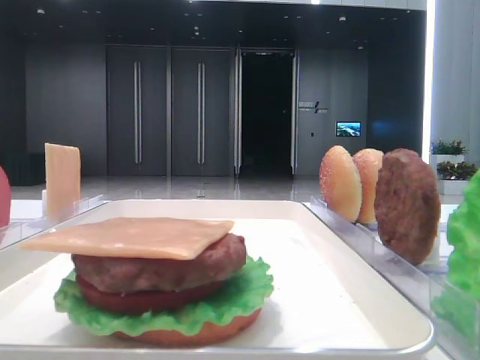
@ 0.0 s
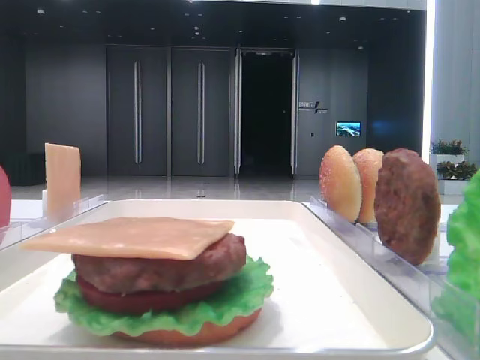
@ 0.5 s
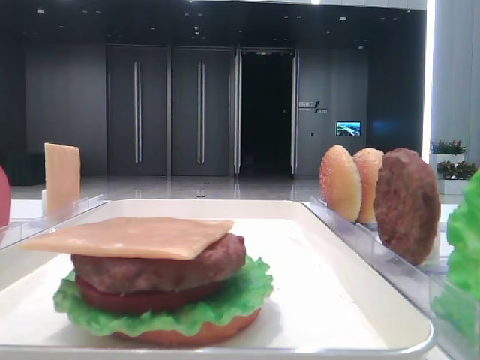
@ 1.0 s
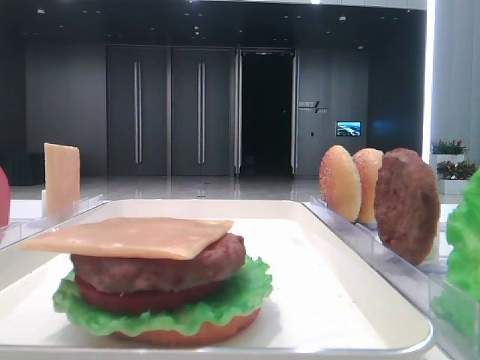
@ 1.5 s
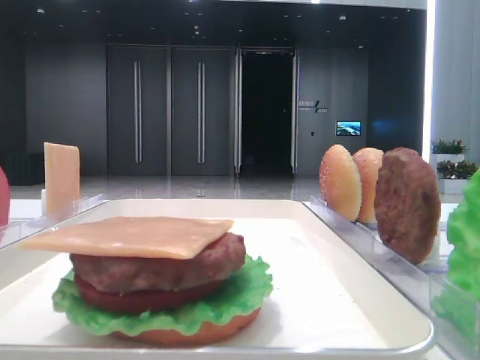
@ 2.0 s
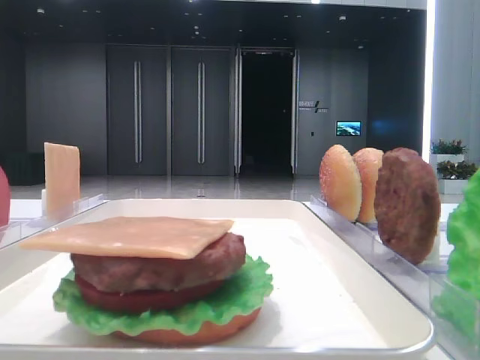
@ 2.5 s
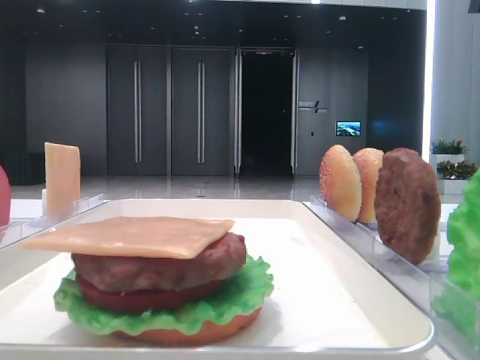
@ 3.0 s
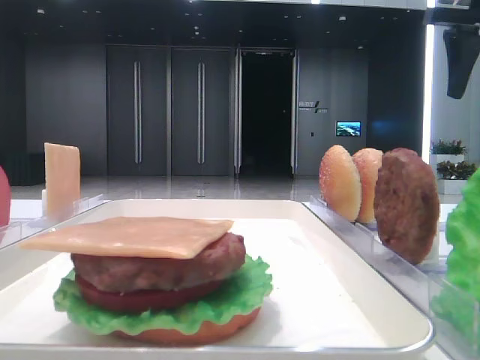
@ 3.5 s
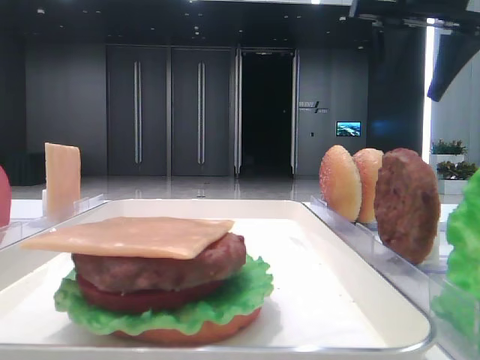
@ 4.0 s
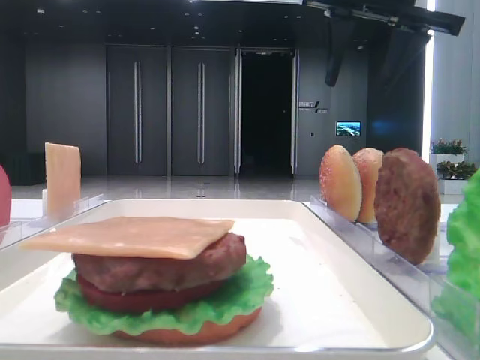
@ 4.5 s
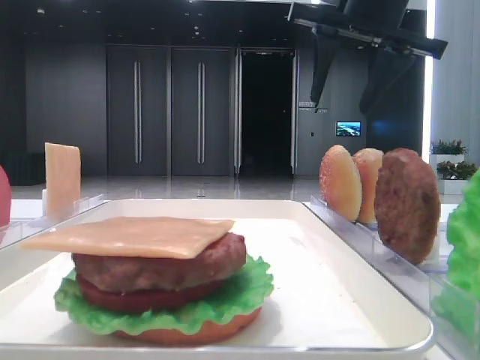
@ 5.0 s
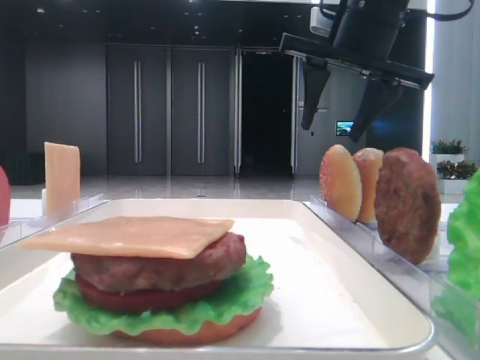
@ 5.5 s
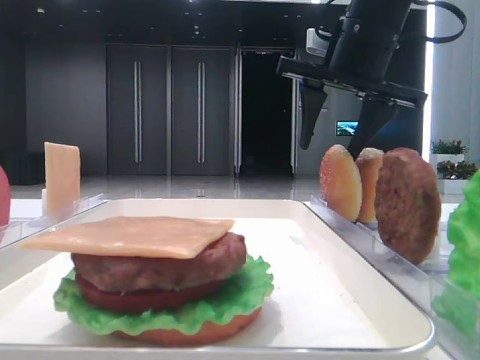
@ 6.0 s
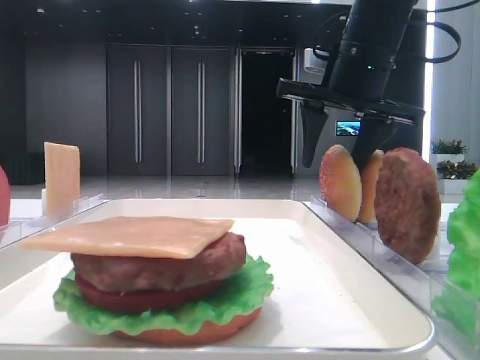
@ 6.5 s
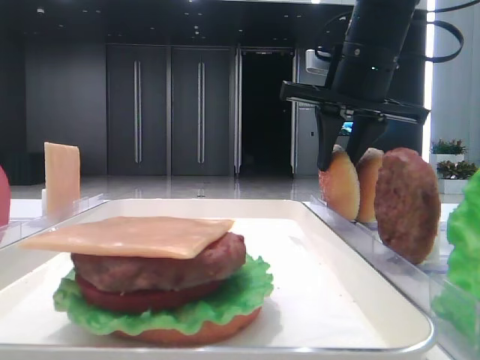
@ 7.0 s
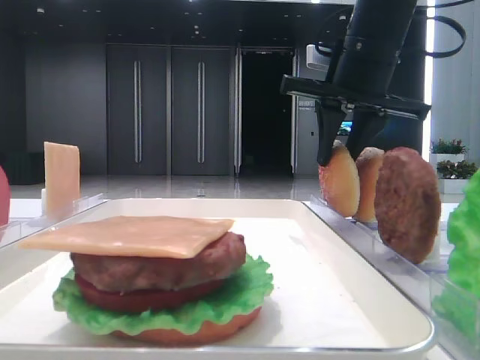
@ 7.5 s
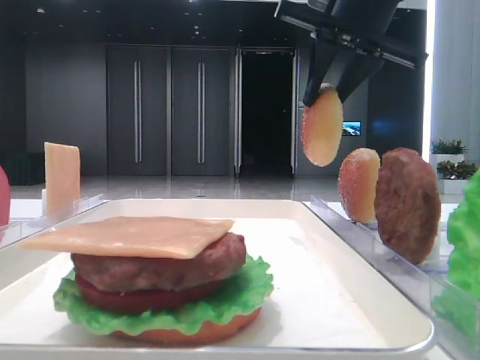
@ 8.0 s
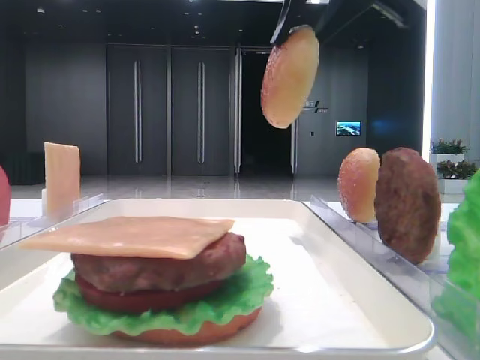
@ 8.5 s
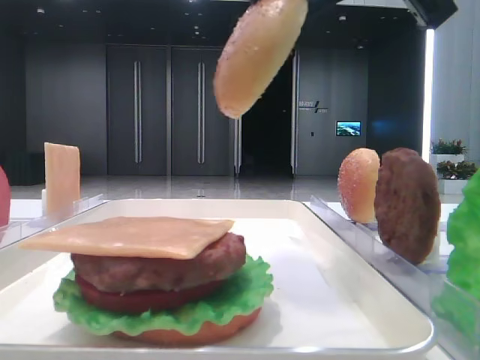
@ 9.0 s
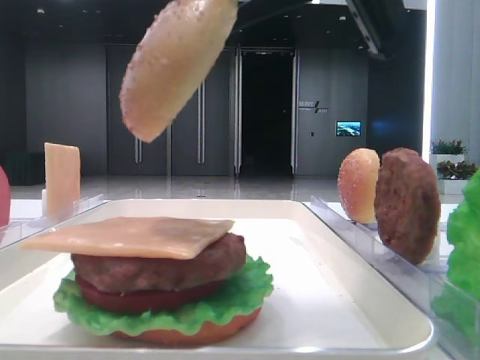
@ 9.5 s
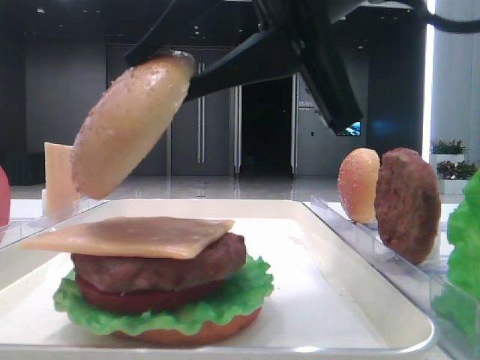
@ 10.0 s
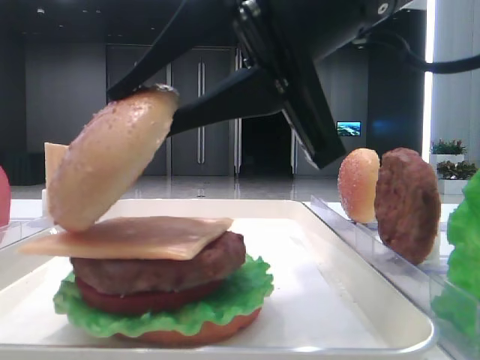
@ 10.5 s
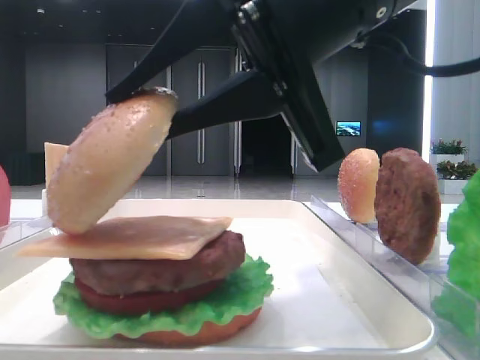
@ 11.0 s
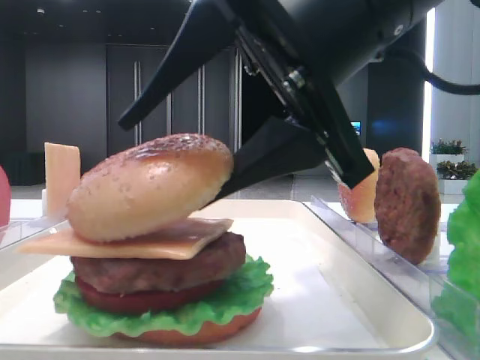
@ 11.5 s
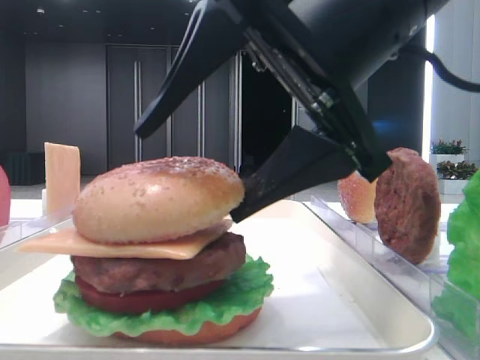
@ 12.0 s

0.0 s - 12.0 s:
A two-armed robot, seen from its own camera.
Step, 0.0 s - 7.0 s: Pick up the top bread slice with the right hand.
2.0 s - 4.0 s: The right gripper heads forward and to the left, covering roughly 20 cm.
4.0 s - 6.0 s: The right gripper moves to the left and downward, some 10 cm.
6.0 s - 8.0 s: The right gripper closes.
8.0 s - 10.0 s: The right gripper is displaced backward by some 15 cm.
10.0 s - 12.0 s: The right gripper opens its fingers.

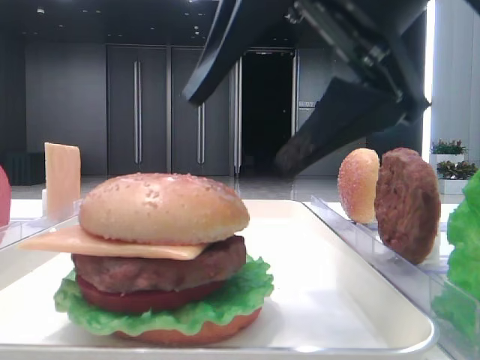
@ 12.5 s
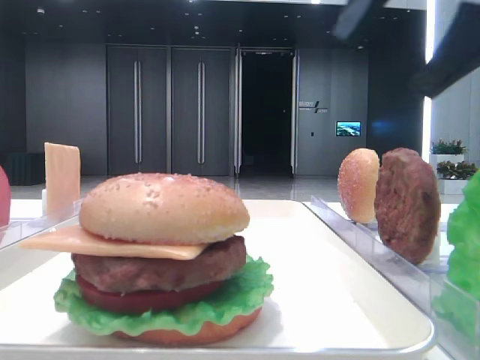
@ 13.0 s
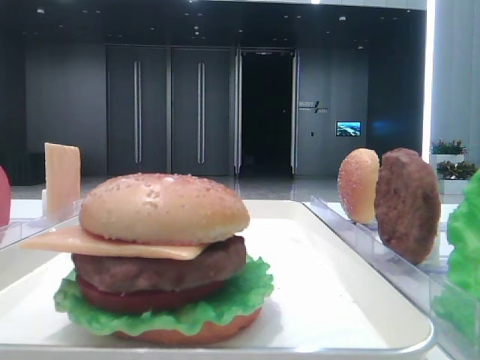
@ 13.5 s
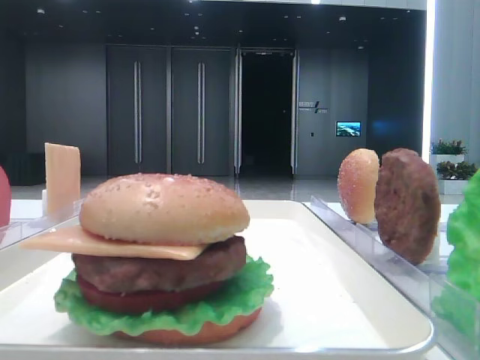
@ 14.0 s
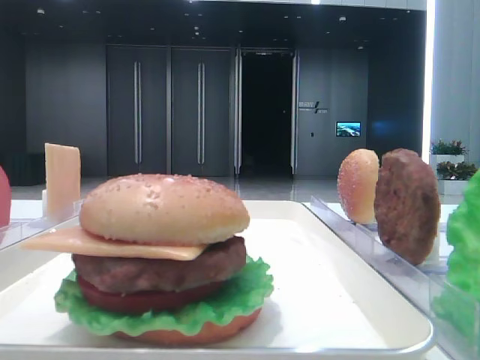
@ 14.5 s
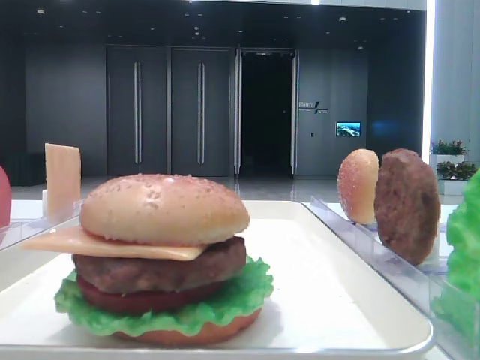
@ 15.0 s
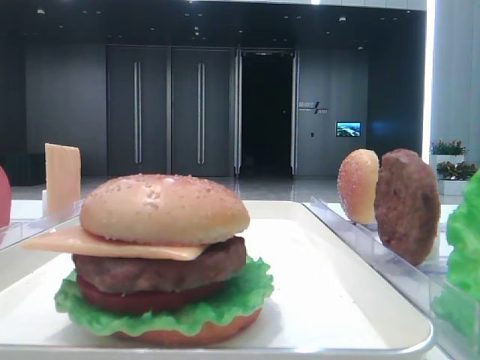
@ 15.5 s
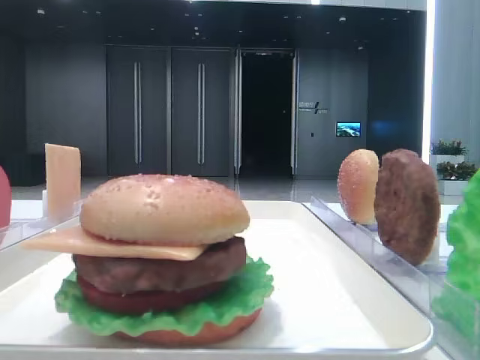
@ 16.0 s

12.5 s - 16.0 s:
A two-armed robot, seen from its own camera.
12.5 s - 14.5 s: The right gripper moves to the right and backward, some 25 cm.

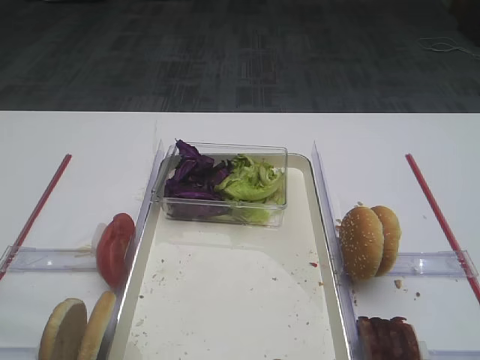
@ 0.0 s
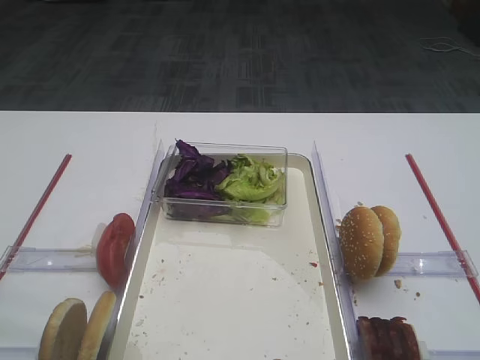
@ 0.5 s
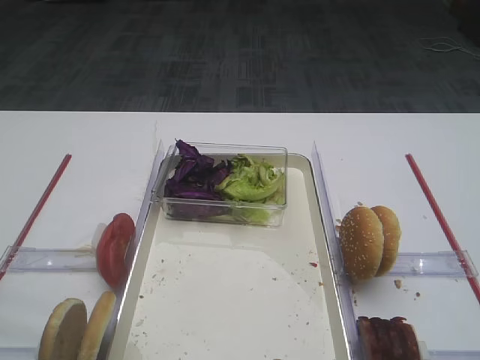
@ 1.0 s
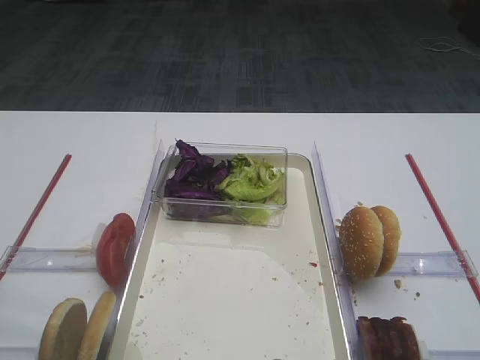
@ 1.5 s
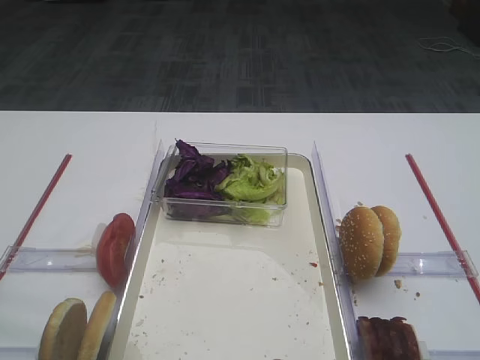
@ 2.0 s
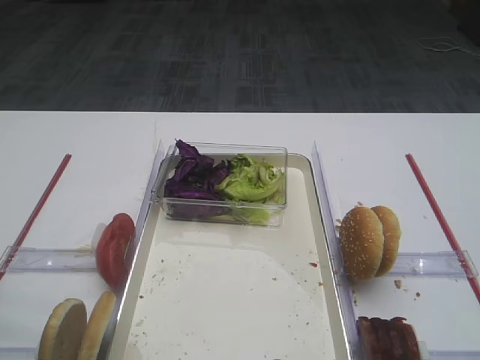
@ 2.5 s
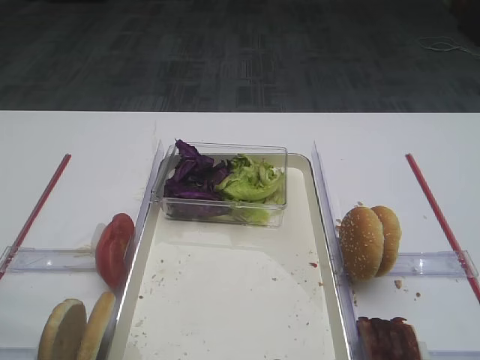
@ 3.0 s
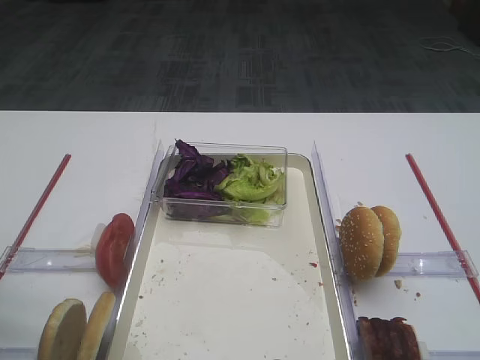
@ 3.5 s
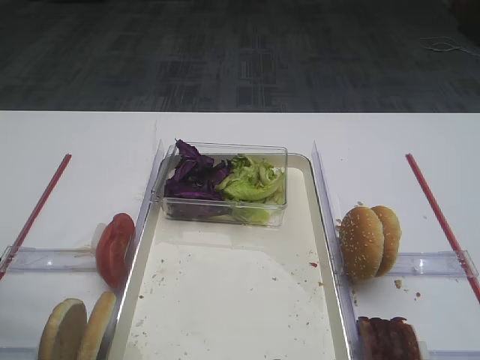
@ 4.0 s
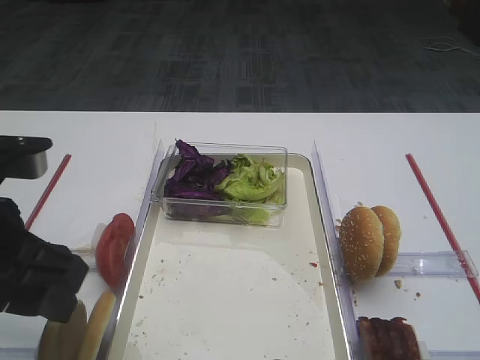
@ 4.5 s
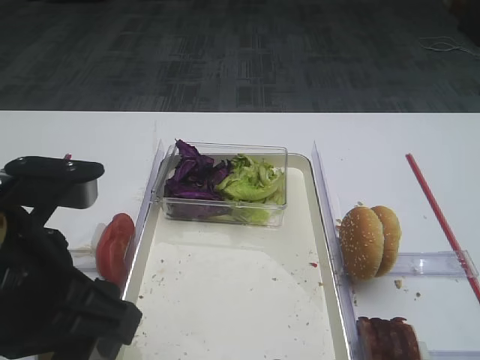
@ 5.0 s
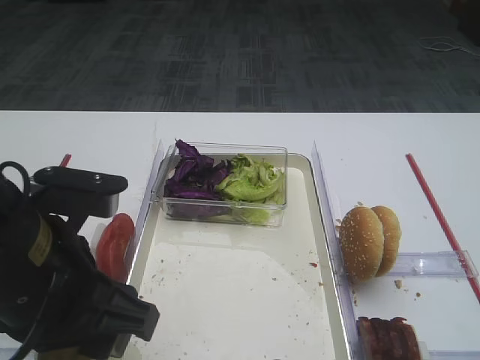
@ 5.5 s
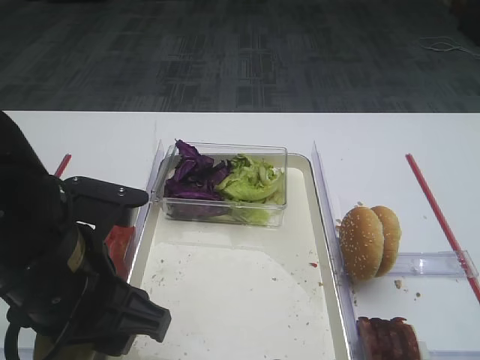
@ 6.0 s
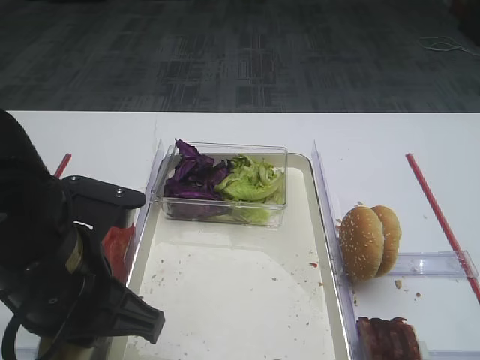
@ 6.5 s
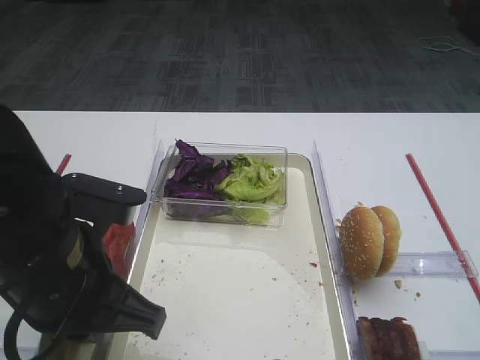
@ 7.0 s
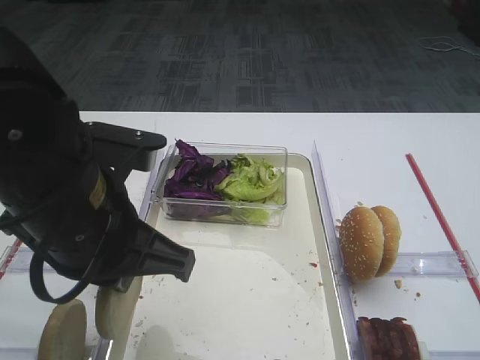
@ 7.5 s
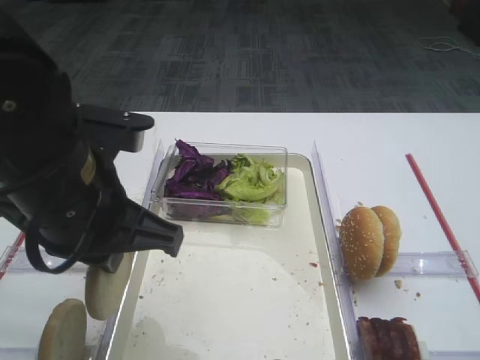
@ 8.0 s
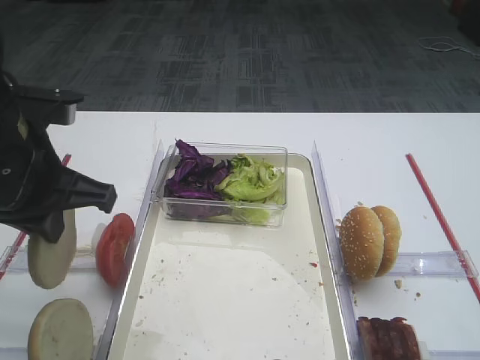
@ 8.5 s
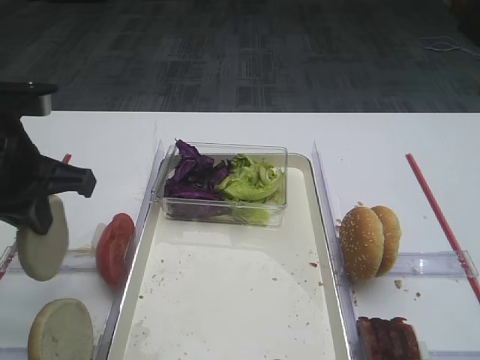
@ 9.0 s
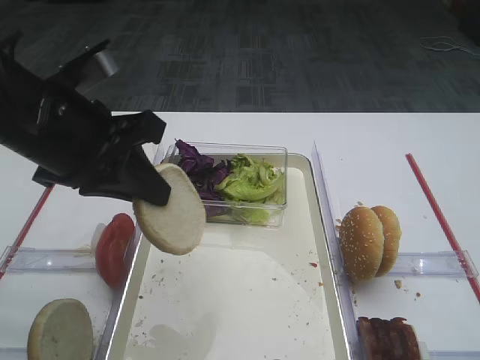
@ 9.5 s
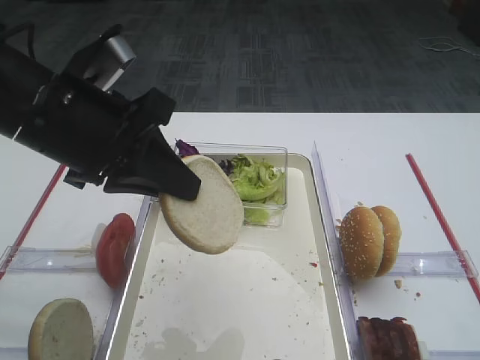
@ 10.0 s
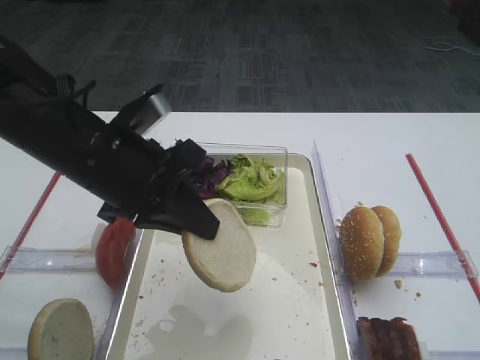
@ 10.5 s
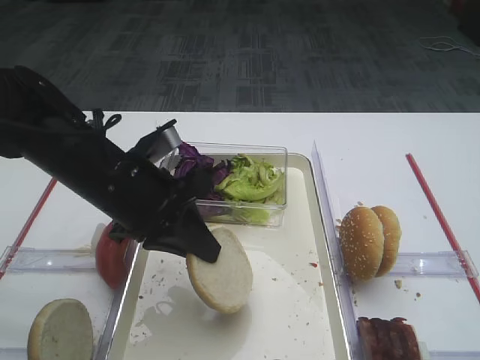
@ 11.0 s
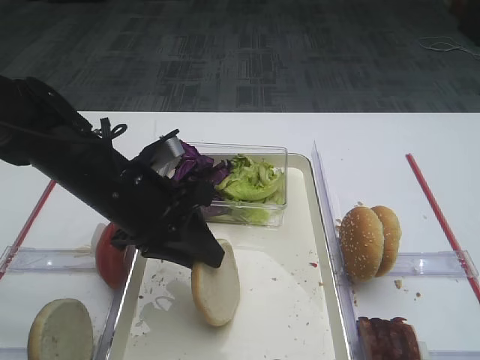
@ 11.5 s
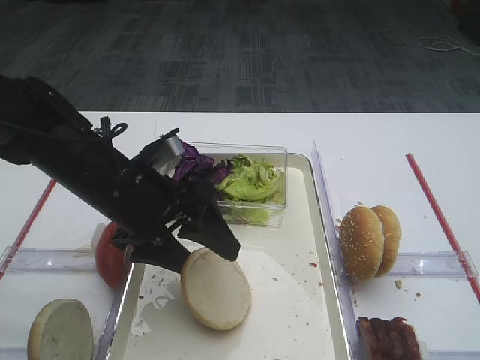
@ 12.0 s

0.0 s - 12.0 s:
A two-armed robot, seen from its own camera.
Step, 0.0 s - 8.5 s: Pick up the bread slice with the left gripper.
4.0 s - 6.0 s: The left gripper heads to the right, covering roughly 15 cm.
6.0 s - 8.0 s: The left gripper ends up some 5 cm from where it was, and closes up.
8.0 s - 10.0 s: The left gripper goes to the left and returns, about 10 cm each way.
10.0 s - 12.0 s: The left gripper shifts about 10 cm downward, and opens up.
